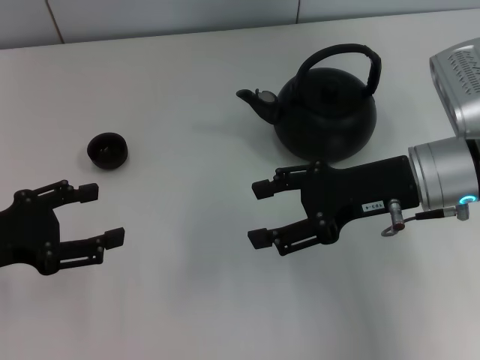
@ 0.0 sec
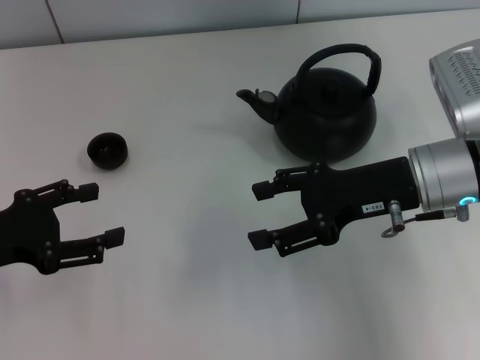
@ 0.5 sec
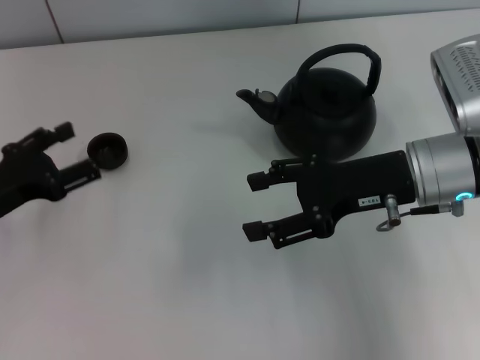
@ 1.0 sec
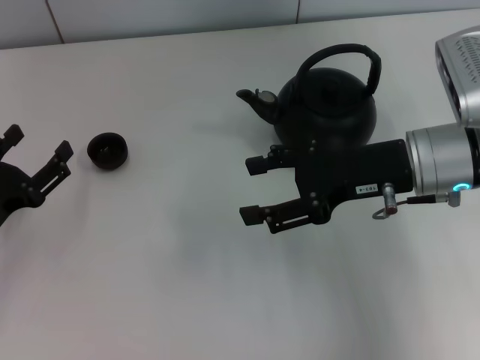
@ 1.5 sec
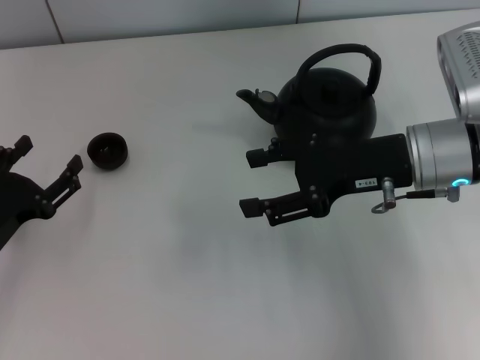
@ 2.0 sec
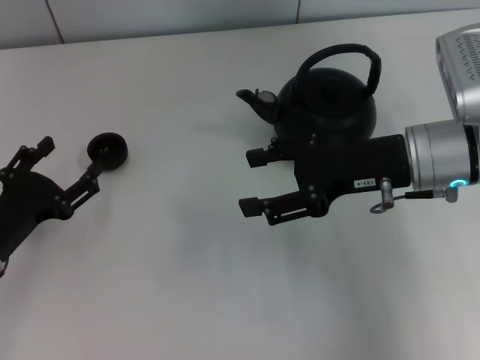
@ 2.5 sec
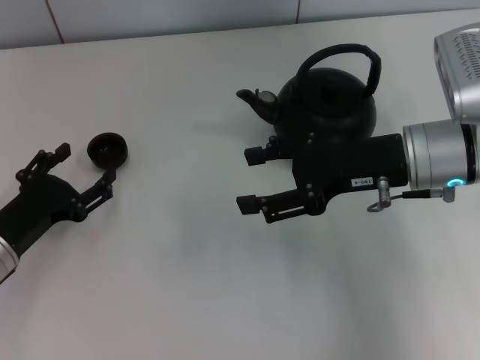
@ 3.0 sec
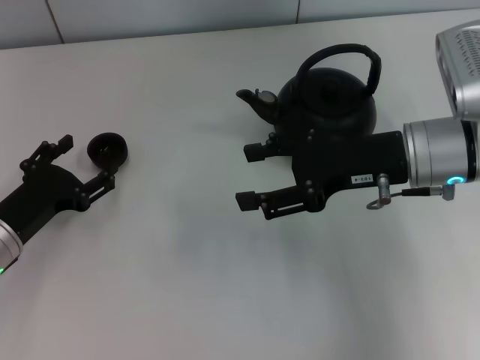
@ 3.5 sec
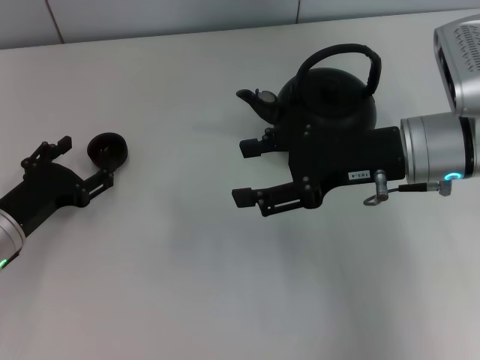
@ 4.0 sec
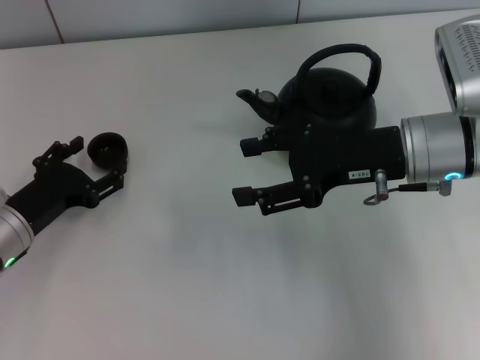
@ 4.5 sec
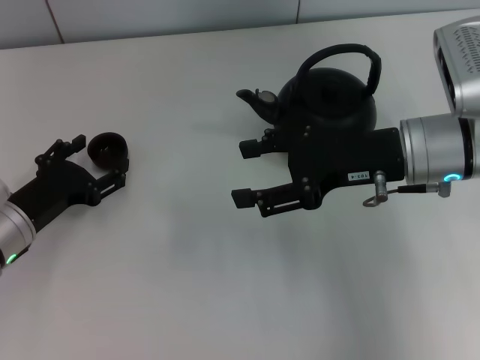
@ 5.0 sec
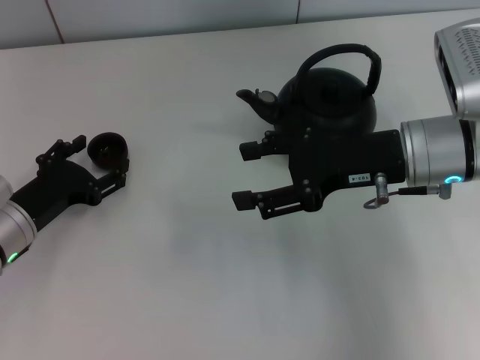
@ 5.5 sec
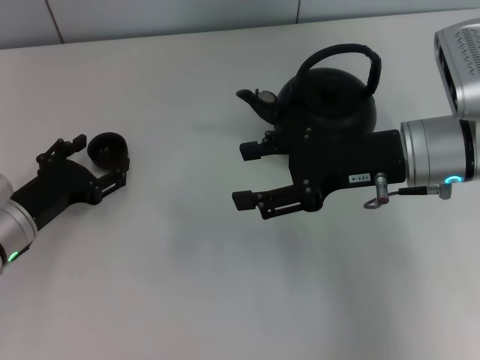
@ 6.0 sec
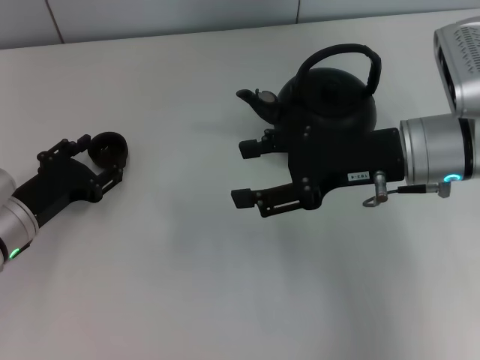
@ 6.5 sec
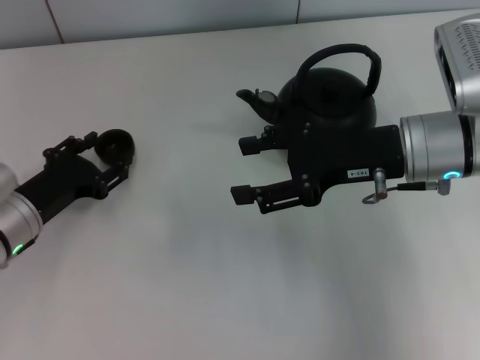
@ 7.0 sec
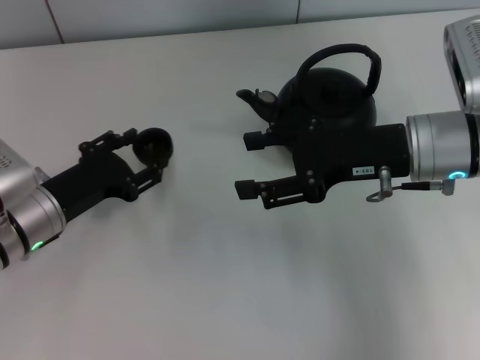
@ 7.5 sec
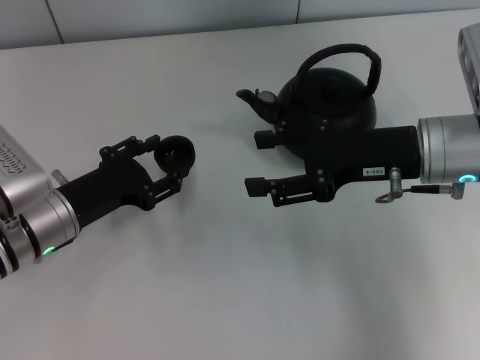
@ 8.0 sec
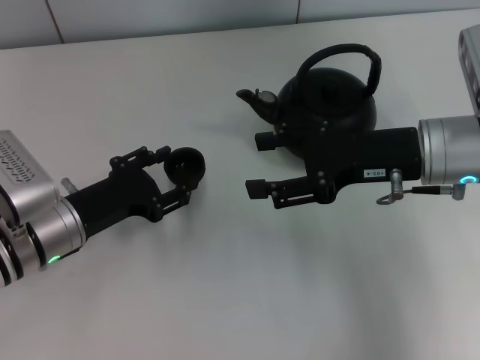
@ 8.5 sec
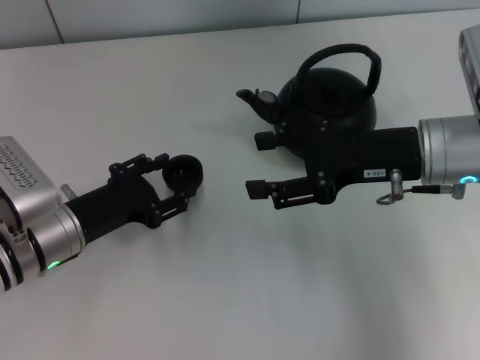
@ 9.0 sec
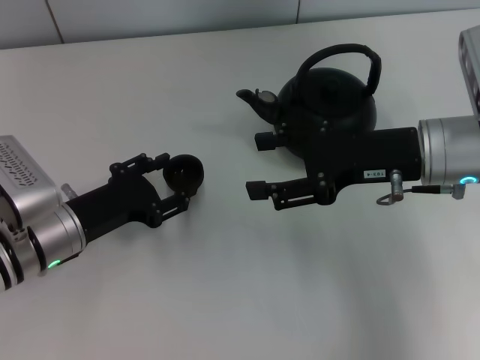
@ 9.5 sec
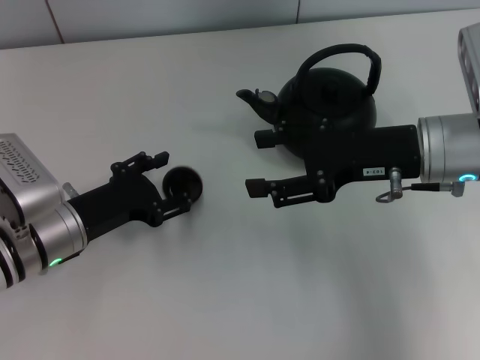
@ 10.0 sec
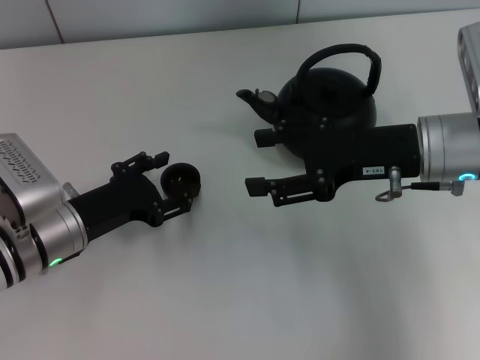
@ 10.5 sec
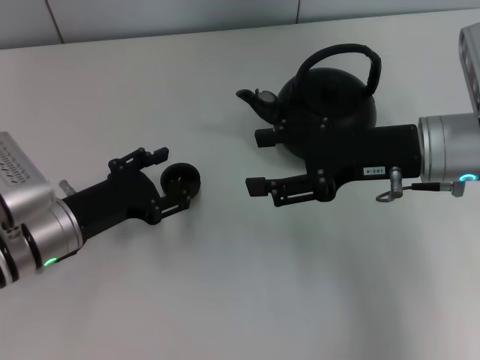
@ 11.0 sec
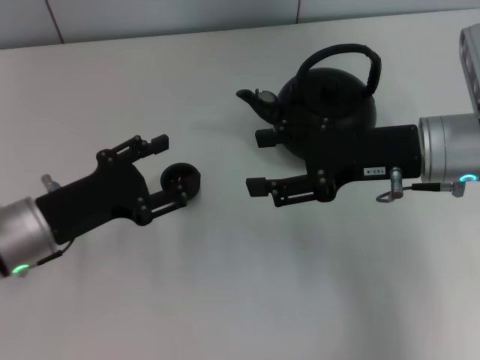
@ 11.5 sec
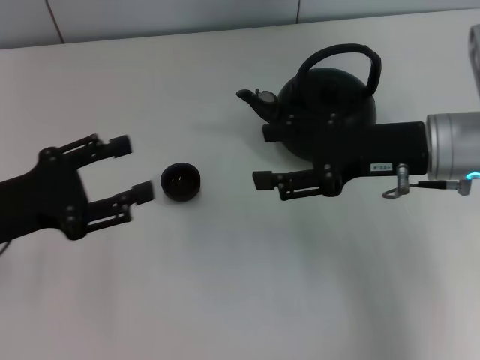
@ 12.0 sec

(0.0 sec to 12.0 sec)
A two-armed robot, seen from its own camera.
Task of the whole recording: Grasp the handle of the teapot with one hand and pour tea into the teacup.
Step, 0.0 sec - 7.0 sec: Pick up the teacup with the left gripper.
Step, 7.5 sec - 11.0 sec: Place the teacup in the center of view with the left gripper.
0.0 sec - 2.0 sec: The left gripper goes about 10 cm downward.
2.0 sec - 4.0 sec: The left gripper shifts by roughly 5 cm.
4.0 sec - 6.0 sec: The two grippers keep their place.
6.0 sec - 8.0 sec: The left gripper closes its fingers.
8.0 sec - 10.0 sec: Both grippers stay put.
10.0 sec - 12.0 sec: The left gripper heads upward and to the left, covering some 10 cm.

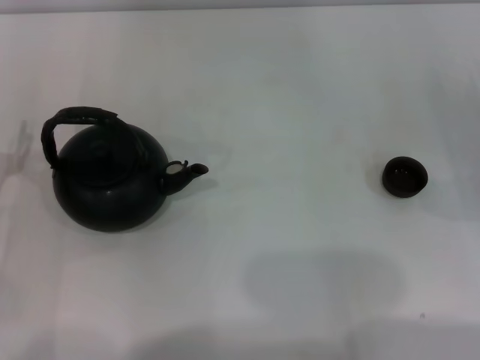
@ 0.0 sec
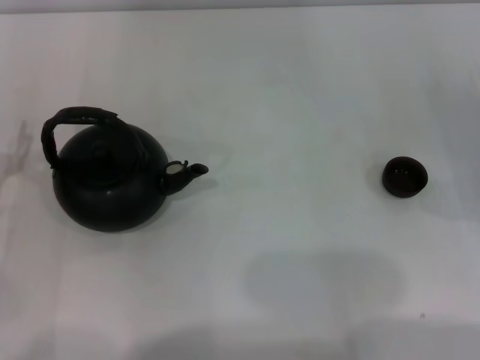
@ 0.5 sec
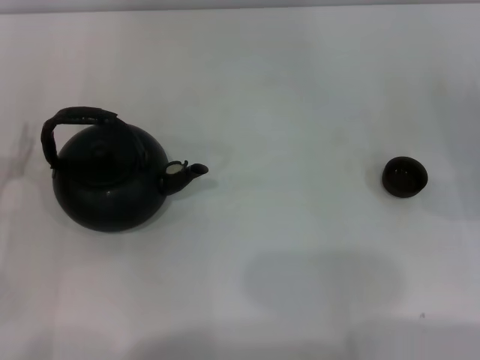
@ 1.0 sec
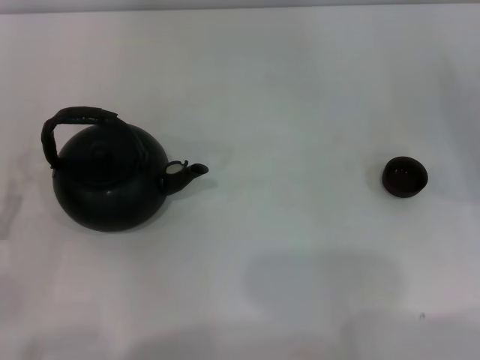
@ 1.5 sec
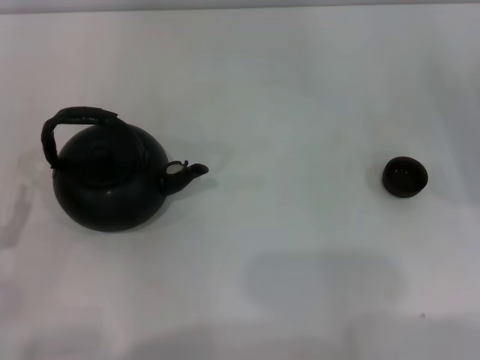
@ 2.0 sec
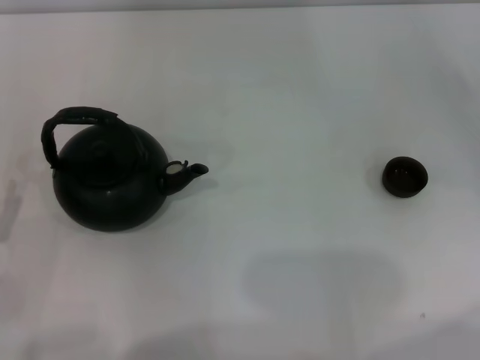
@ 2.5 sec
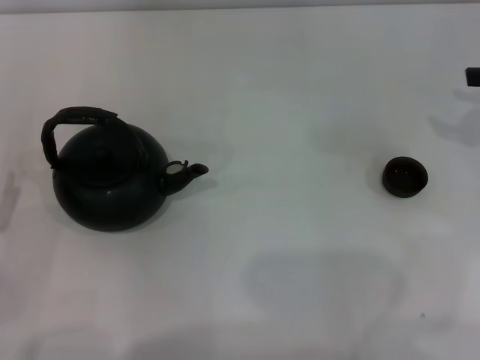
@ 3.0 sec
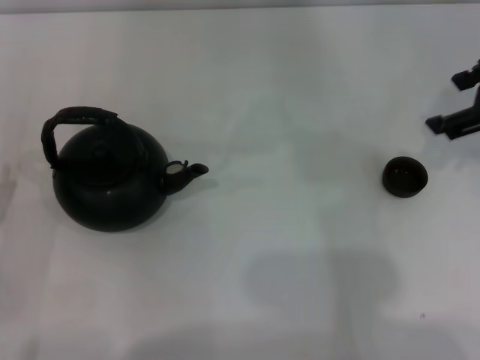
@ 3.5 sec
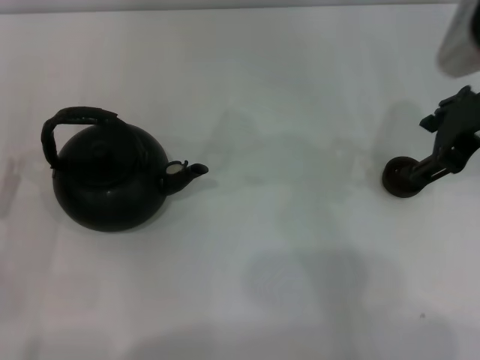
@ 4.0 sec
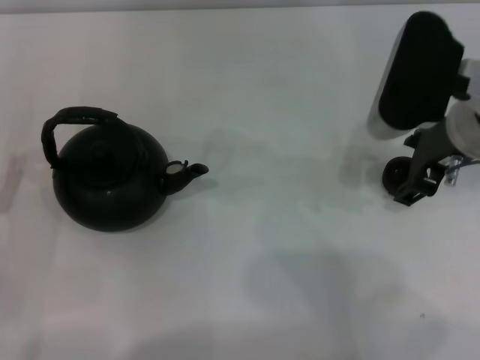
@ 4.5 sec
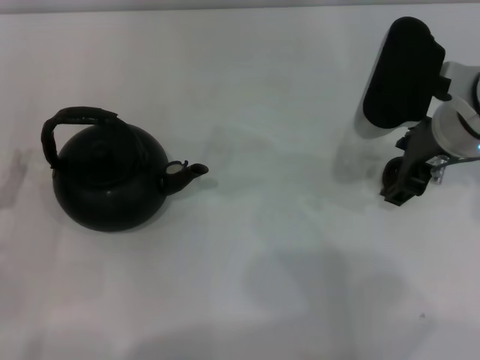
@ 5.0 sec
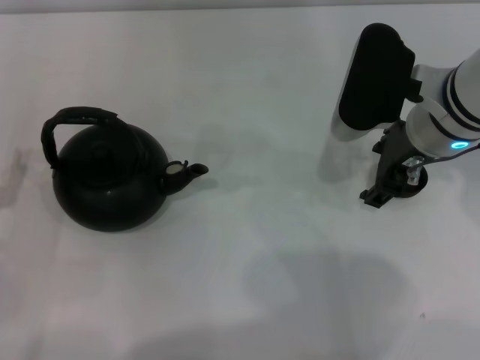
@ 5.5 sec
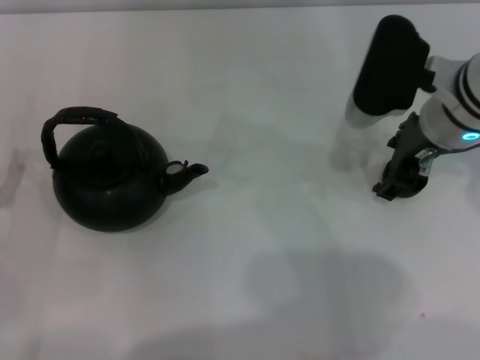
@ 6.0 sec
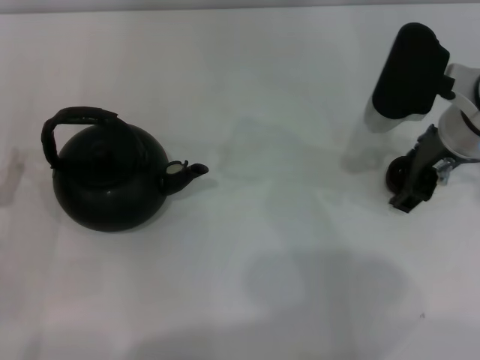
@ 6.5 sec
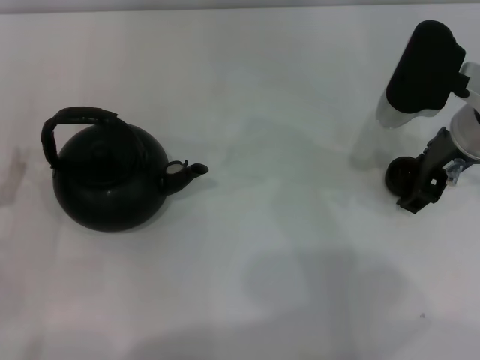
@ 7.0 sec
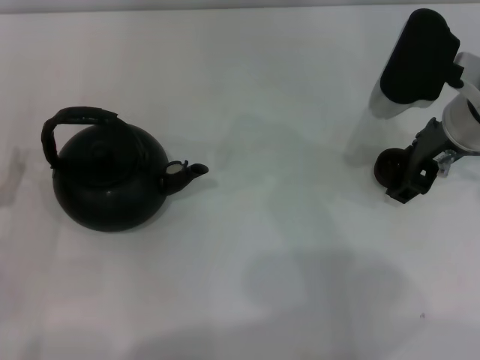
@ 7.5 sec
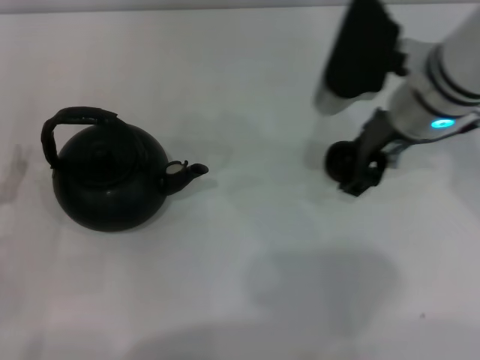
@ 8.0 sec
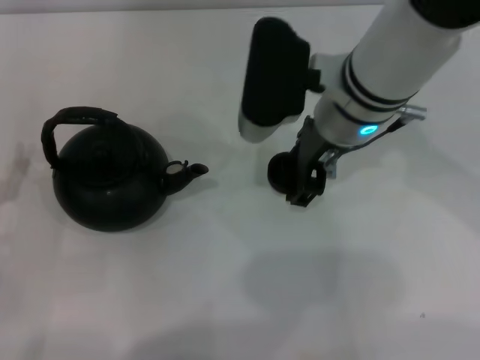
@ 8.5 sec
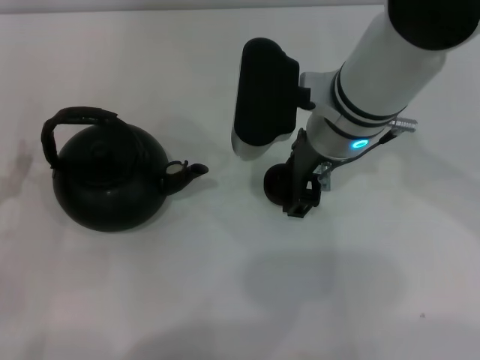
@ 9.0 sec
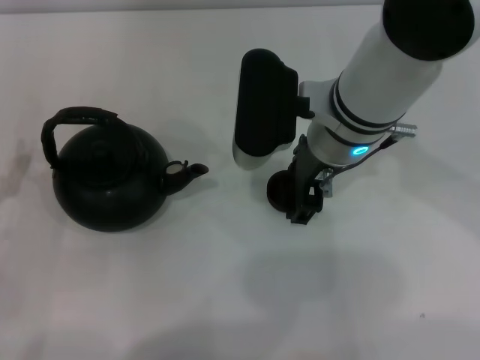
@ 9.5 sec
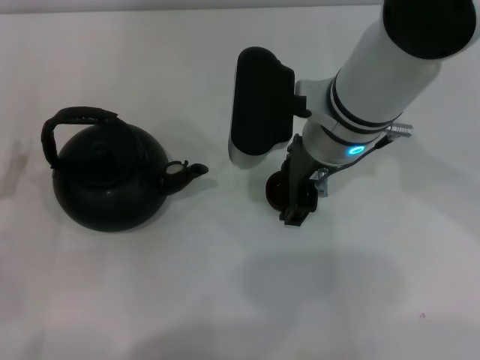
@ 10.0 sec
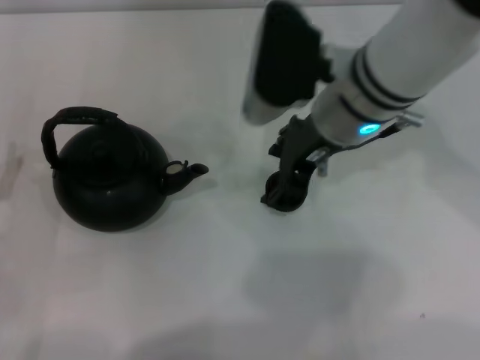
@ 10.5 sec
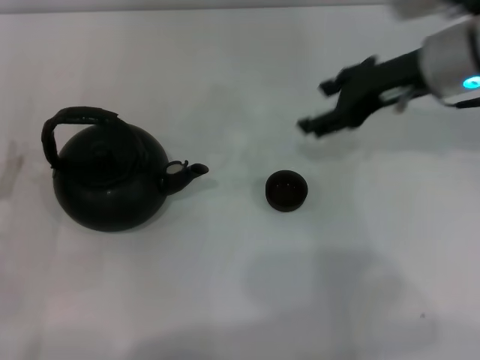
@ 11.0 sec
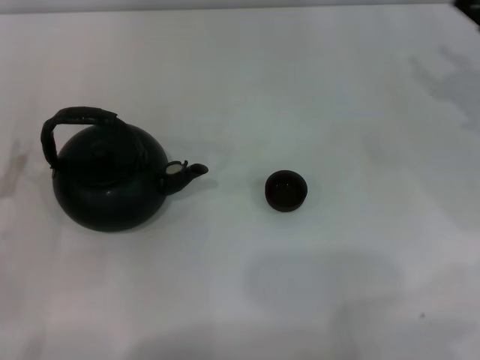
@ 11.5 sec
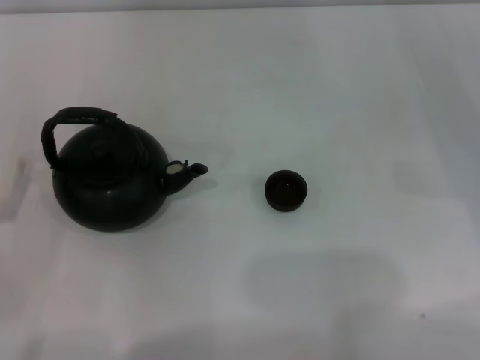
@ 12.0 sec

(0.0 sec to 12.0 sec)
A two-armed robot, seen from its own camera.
Task of the whole recording: Grasp the handle of the teapot with one hand and pour tea into the teacup.
Step, 0.0 sec - 7.5 sec: Pick up the teacup with the right gripper.
Step, 8.0 sec - 10.5 sec: Place the teacup in the center of view with the right gripper.
2.0 sec - 4.0 sec: The right gripper shifts some 25 cm upward and to the left.
4.0 sec - 6.0 sec: The right gripper heads downward, covering some 5 cm.
6.0 sec - 8.0 sec: The grippers move only a little.
8.0 sec - 10.0 sec: The right gripper is displaced to the left by about 5 cm.
10.0 sec - 12.0 sec: The right gripper heads to the right, covering about 30 cm.

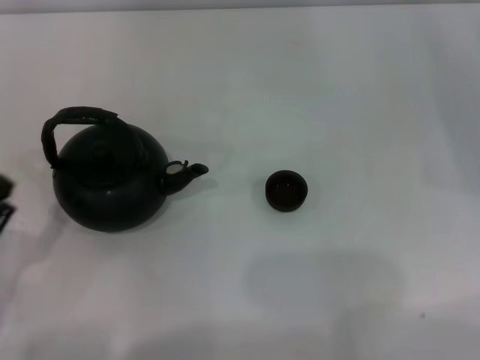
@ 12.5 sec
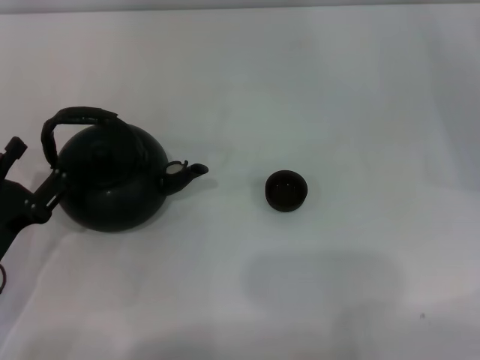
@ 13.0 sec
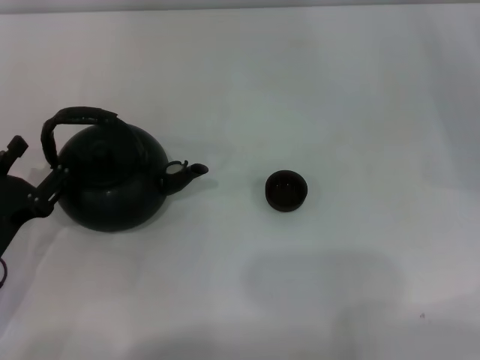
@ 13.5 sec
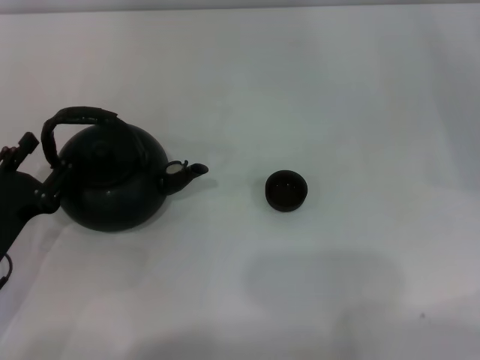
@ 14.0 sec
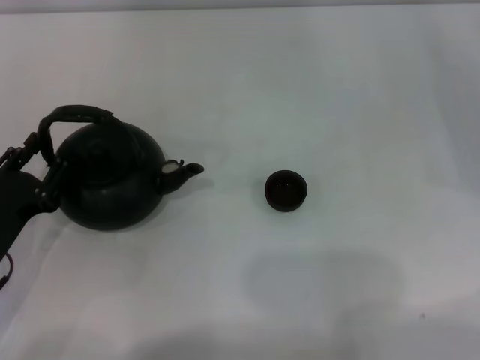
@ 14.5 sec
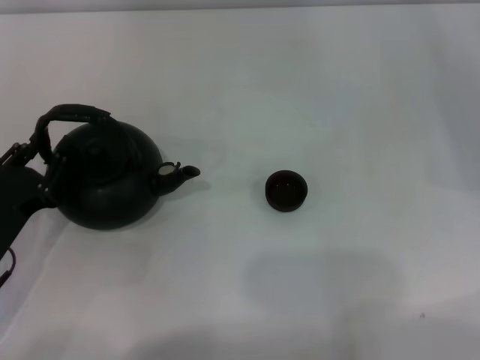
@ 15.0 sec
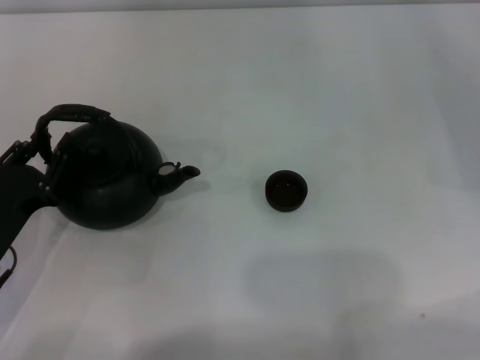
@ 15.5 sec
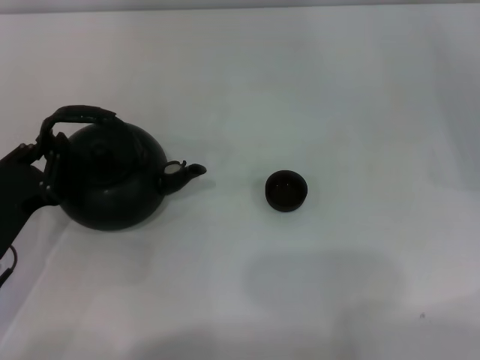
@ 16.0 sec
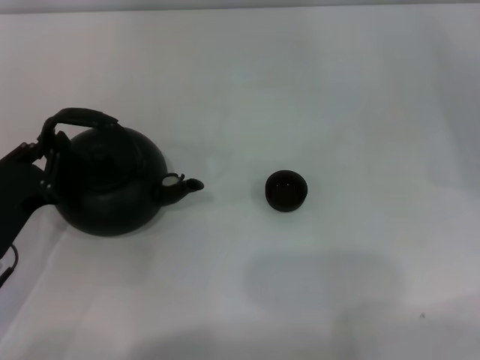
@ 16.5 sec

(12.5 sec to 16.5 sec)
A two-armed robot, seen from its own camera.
Task of the whole recording: Grasp the handle of the teapot with one hand and pour tea into the teacup.
12.5 sec - 14.5 sec: The left gripper is displaced forward by roughly 5 cm.
14.5 sec - 16.5 sec: The left gripper closes its fingers.
